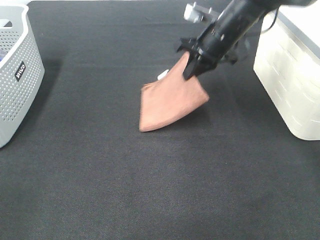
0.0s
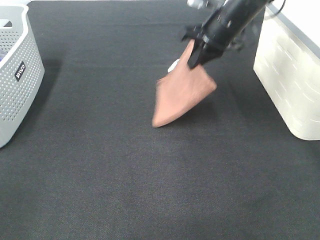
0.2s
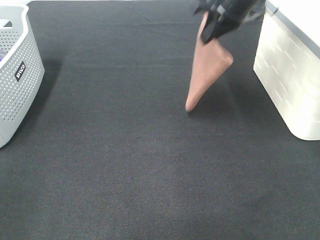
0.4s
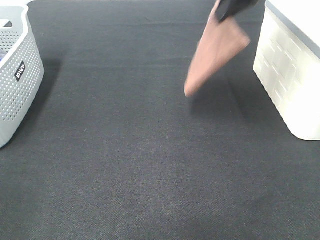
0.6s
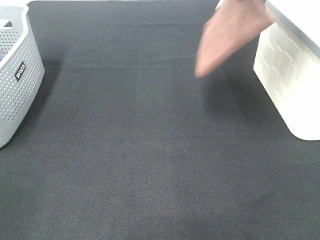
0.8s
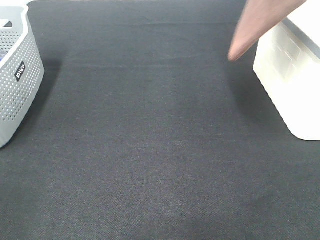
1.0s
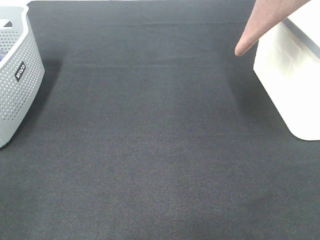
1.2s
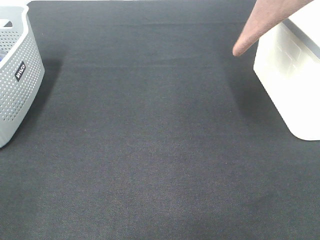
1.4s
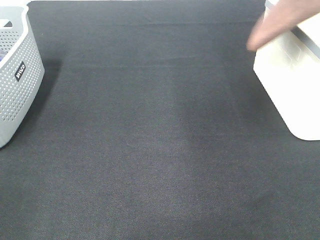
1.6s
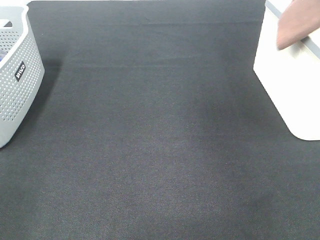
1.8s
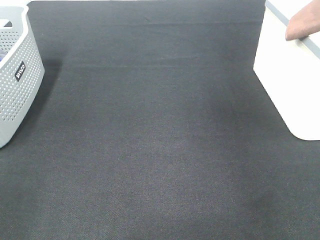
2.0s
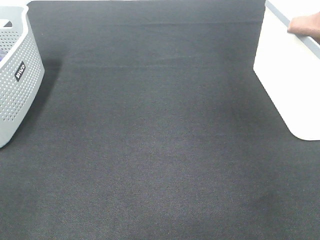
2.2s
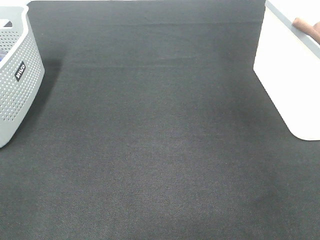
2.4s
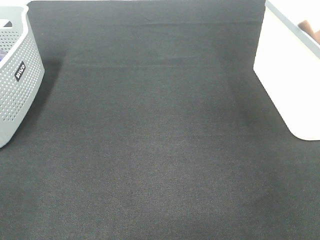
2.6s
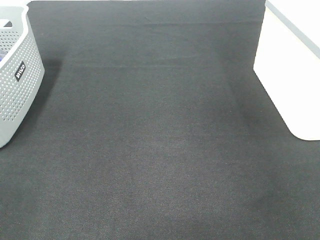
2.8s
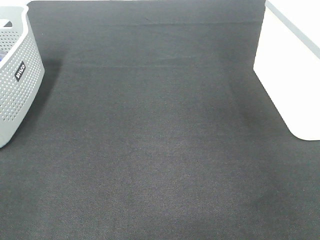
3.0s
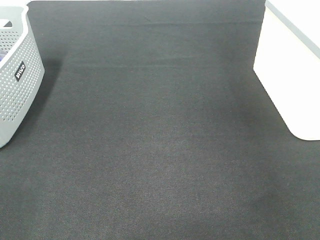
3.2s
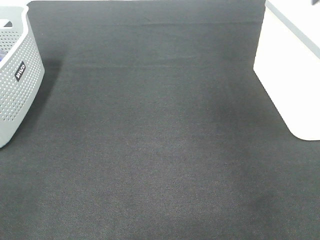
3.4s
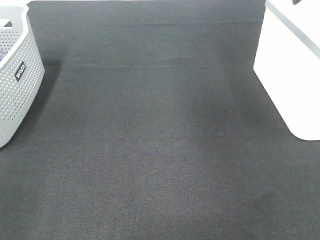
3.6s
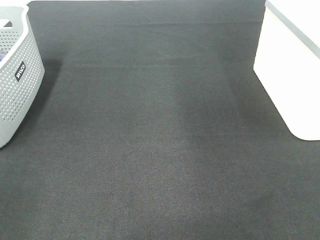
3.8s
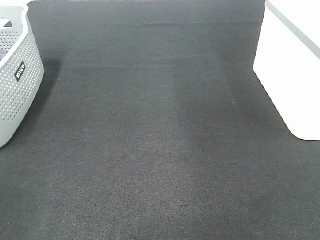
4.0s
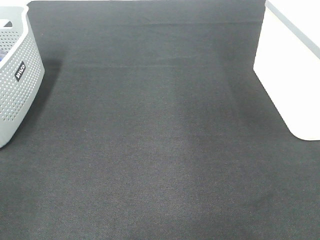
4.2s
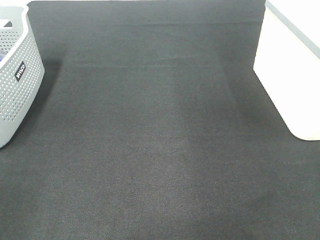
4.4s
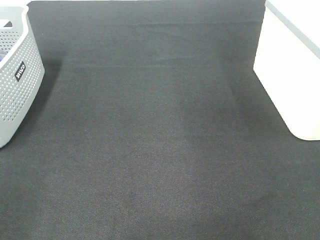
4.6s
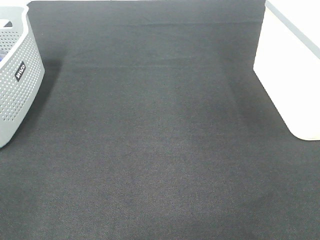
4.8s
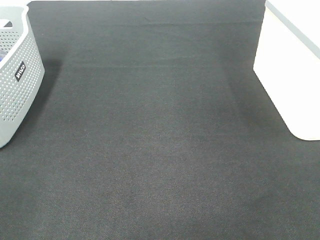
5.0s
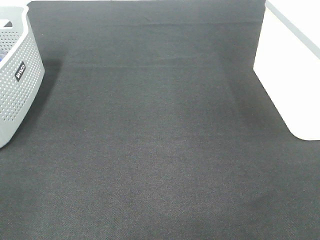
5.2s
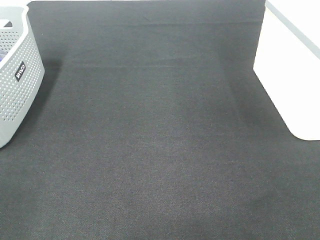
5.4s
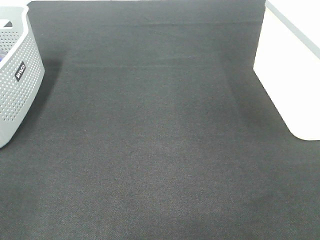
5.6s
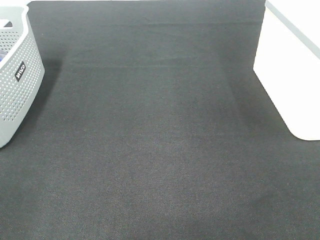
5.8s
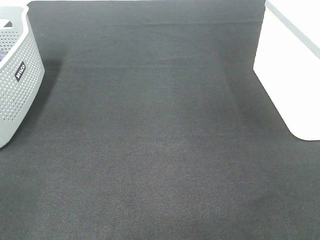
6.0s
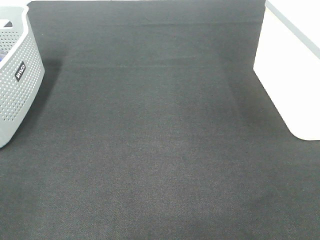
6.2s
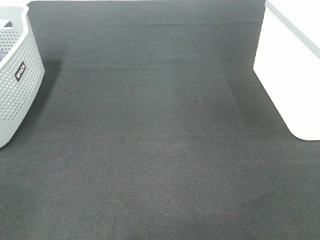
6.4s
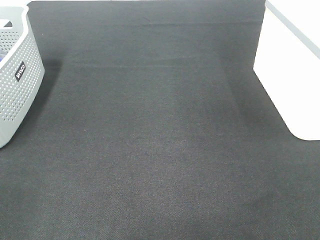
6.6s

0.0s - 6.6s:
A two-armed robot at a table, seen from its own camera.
Step, 0.0s - 3.0s: Right hand: place the brown towel in right basket.
0.0s - 1.6s: The right gripper is displaced upward and to the right by some 25 cm.
1.6s - 3.2s: The right gripper heads to the right and downward, covering approximately 15 cm, and opens up.

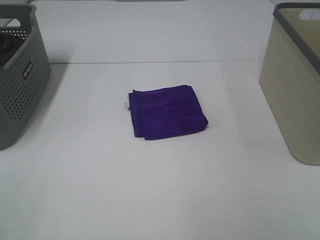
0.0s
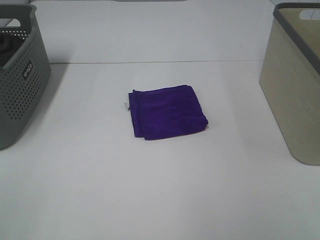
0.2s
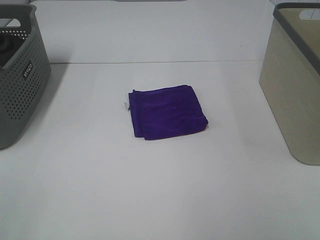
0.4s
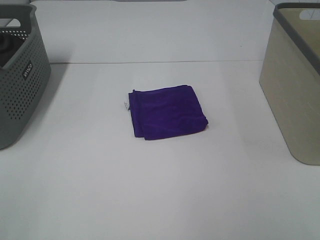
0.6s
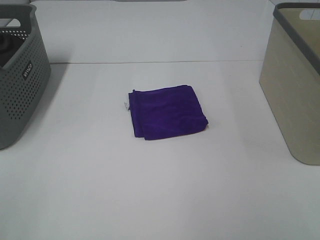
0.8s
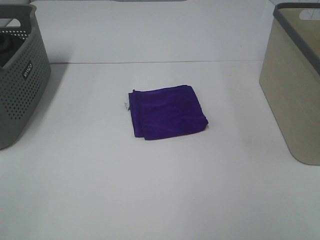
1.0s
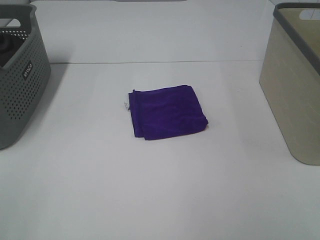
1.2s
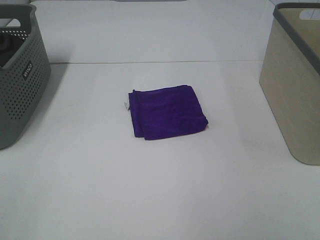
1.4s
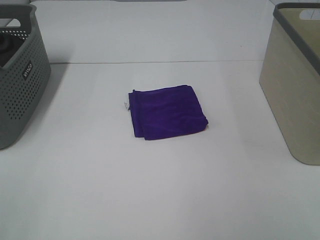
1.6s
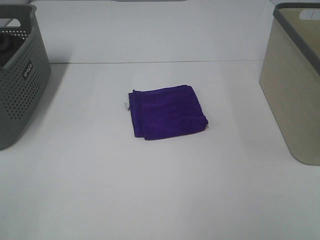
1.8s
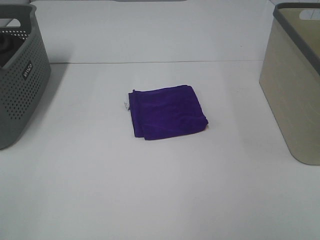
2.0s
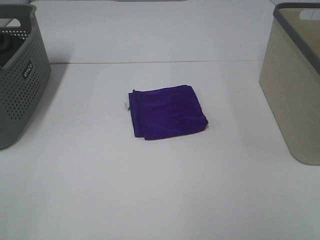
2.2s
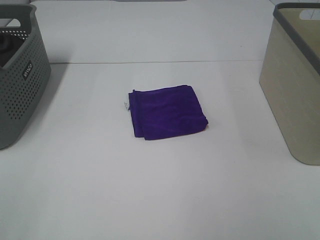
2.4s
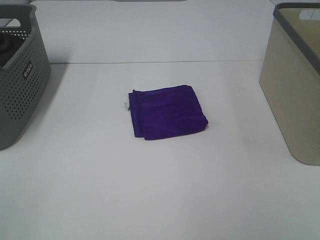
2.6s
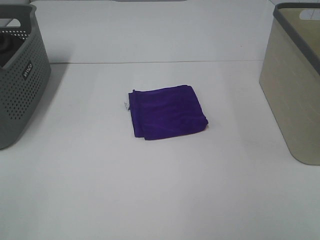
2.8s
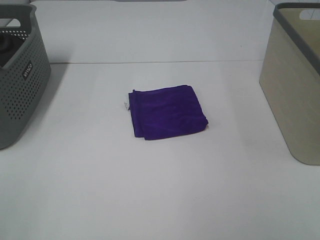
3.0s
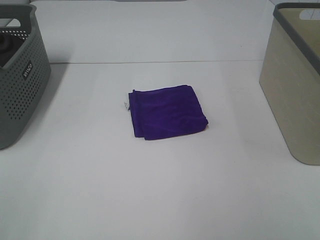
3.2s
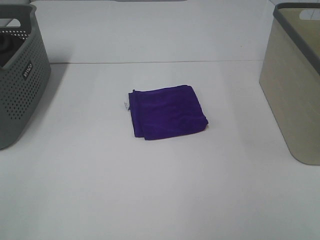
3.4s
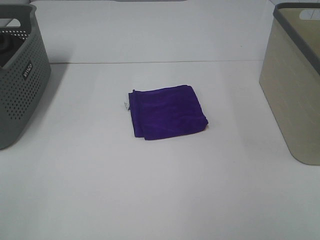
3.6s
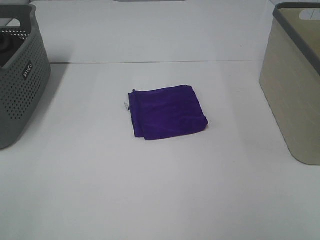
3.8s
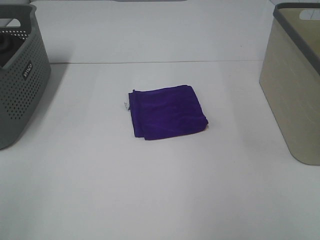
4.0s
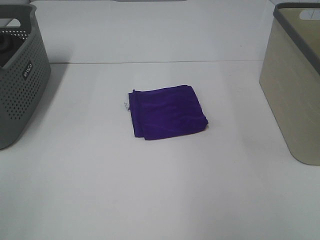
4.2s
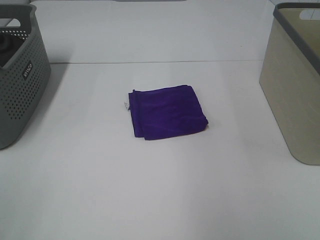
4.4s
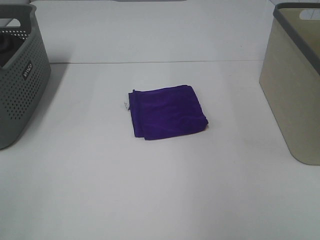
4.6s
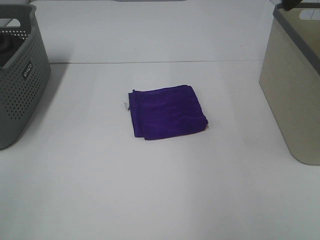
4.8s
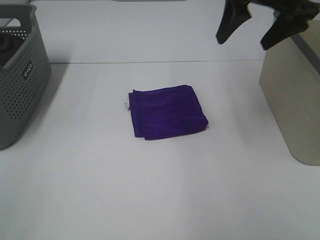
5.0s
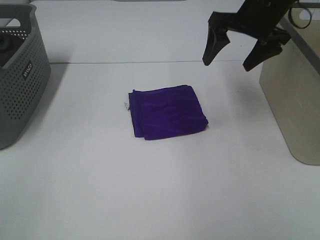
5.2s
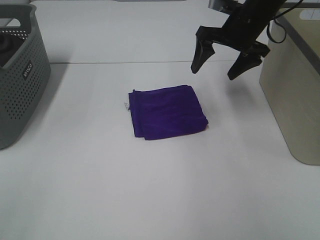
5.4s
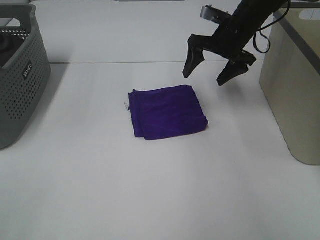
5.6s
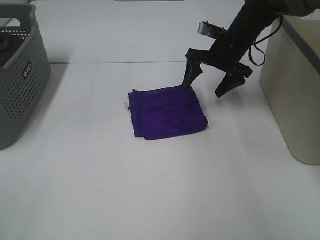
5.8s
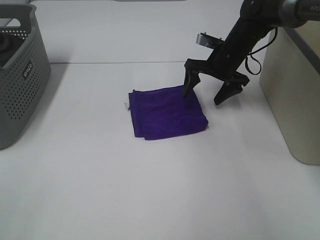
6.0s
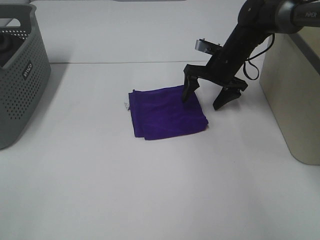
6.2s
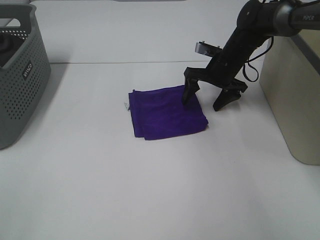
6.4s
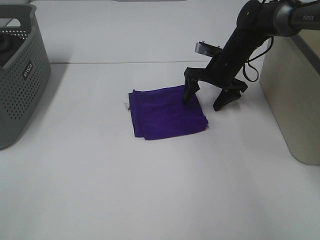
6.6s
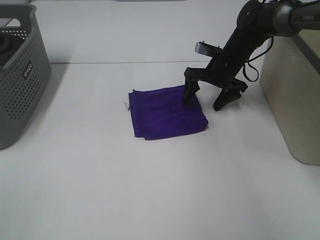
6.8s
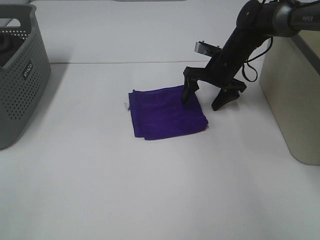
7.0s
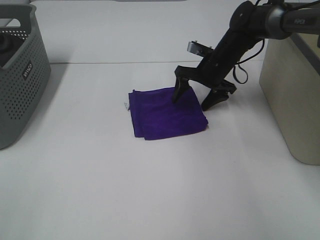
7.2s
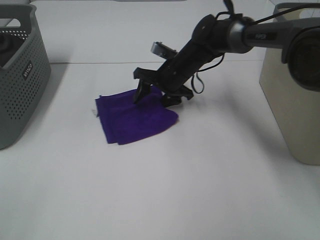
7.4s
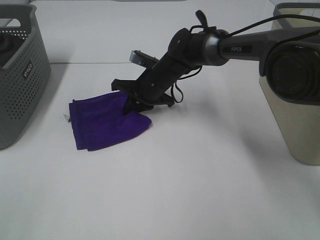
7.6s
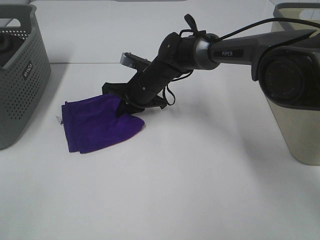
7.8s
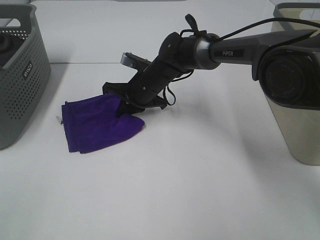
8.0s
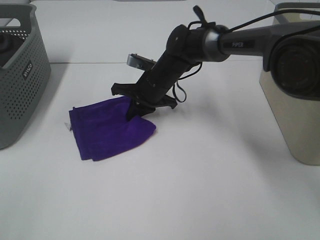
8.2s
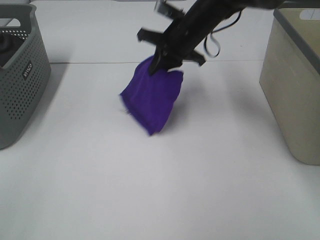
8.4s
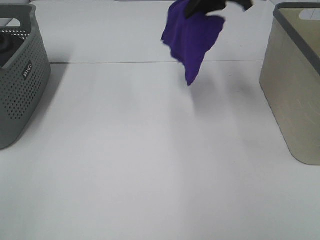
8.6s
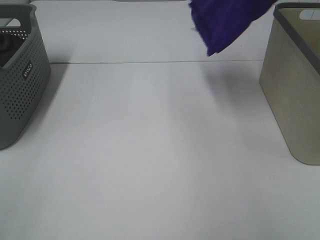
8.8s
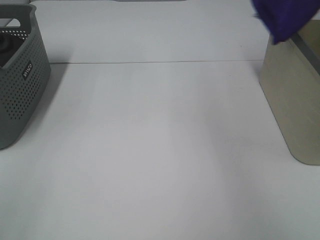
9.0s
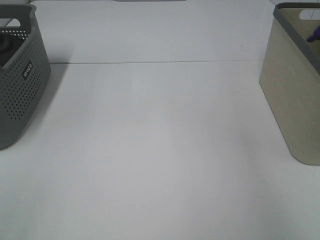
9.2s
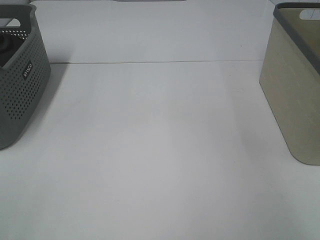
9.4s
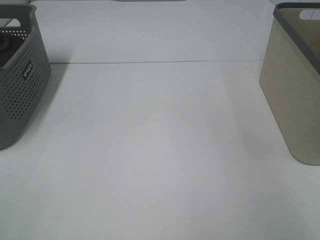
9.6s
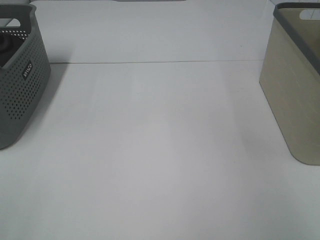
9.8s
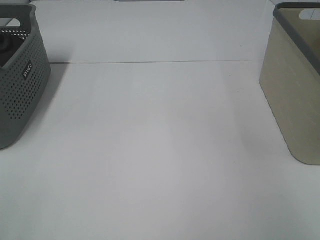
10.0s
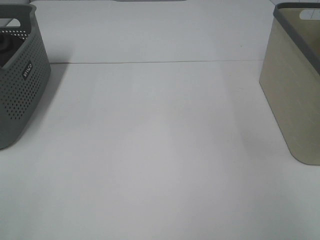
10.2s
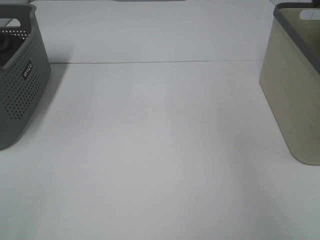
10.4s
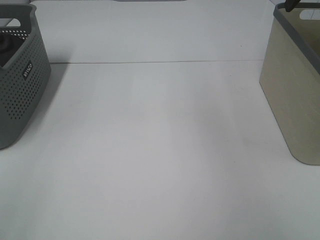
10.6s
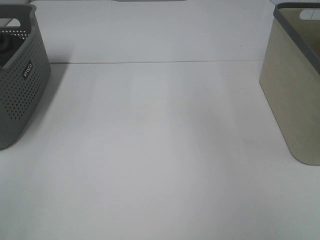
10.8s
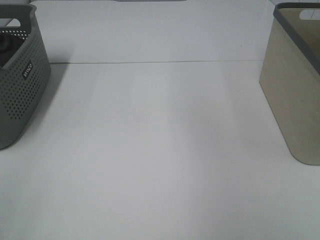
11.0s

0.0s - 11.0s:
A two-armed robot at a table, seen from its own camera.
Step, 0.0s - 7.6s: Right hand: grab the folded purple towel.
Step, 7.8s - 10.2s: Right hand: place the purple towel in right basket.
0.0s - 3.2s: Both grippers stay put.
4.8s - 6.2s: The right gripper goes about 30 cm downward and forward.
6.2s - 7.8s: The right gripper travels to the left by approximately 15 cm, and closes up.
7.8s - 9.4s: The right gripper is displaced to the right and upward by approximately 50 cm.

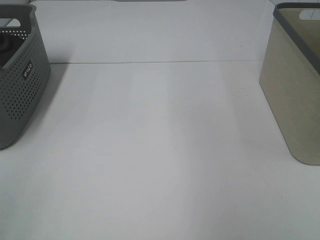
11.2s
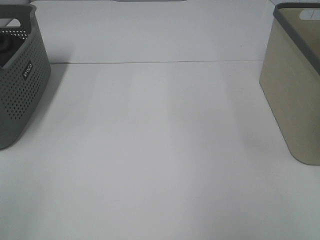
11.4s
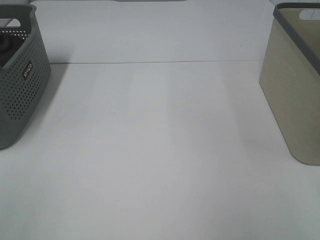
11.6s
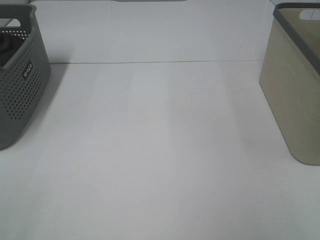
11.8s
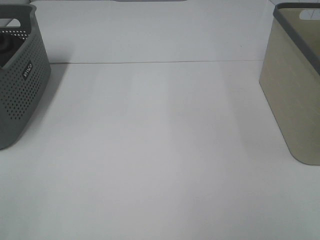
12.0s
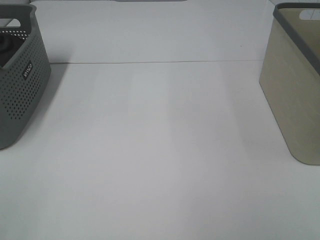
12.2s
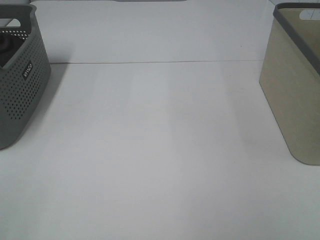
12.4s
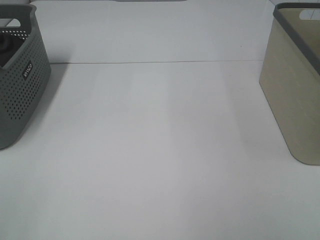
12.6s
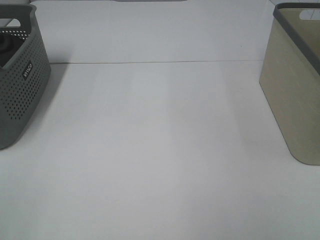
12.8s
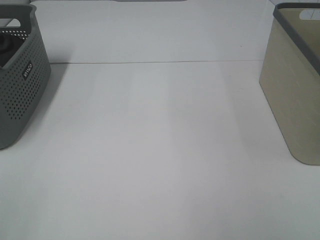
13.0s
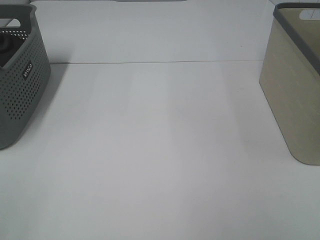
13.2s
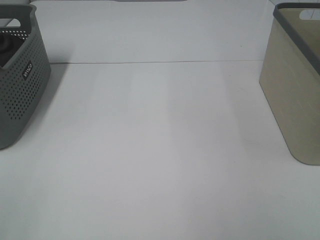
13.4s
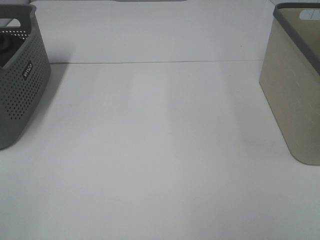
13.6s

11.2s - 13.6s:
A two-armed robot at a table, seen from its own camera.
12.4s - 13.6s: The two grippers keep their place.

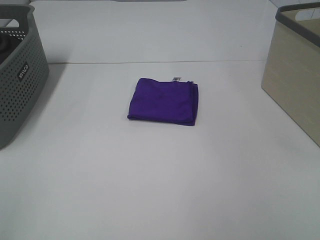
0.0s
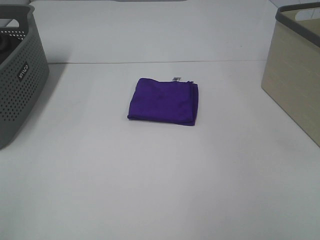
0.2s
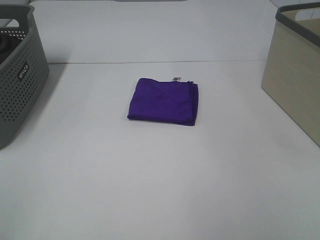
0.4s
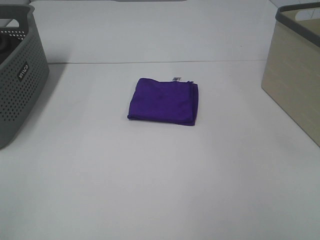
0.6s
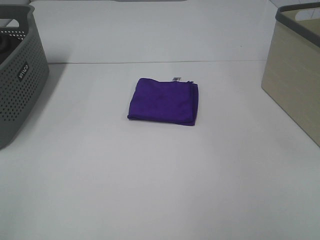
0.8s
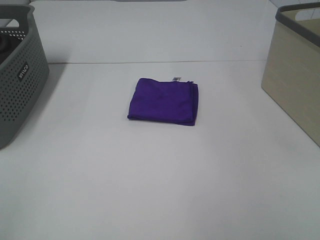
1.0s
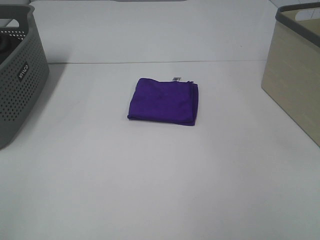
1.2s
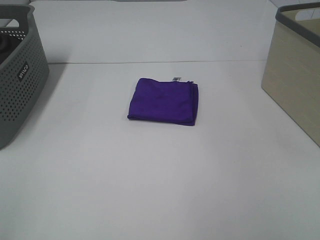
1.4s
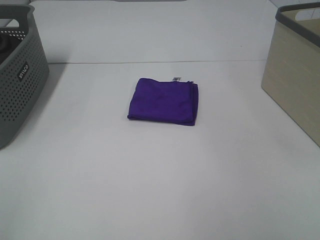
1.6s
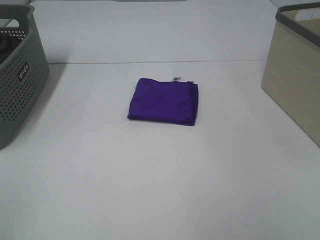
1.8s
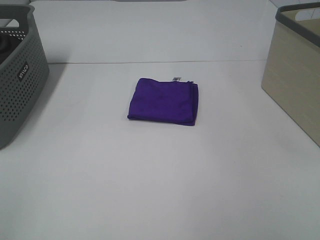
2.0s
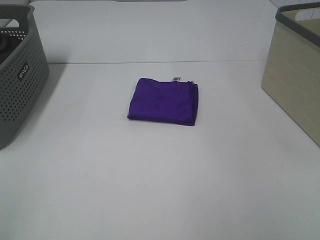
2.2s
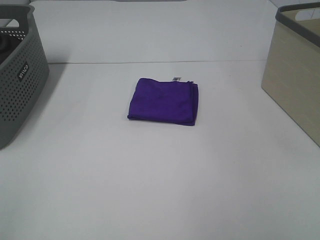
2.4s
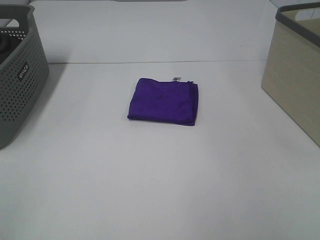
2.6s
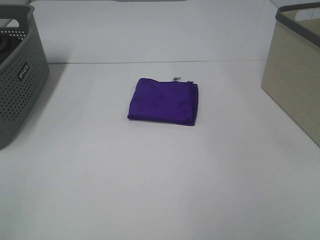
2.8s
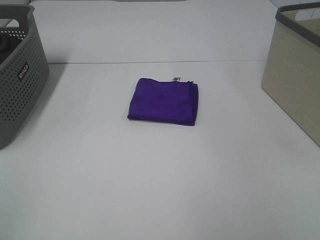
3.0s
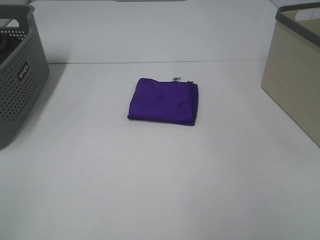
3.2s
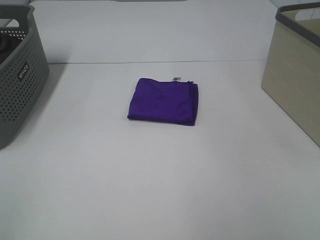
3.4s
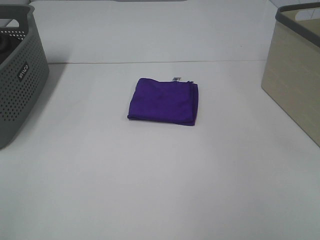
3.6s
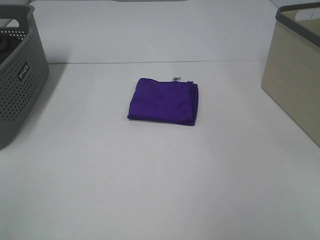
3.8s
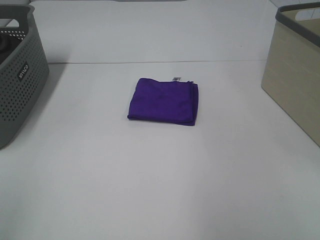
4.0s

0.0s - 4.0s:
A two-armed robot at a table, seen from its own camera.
0.0s - 2.6s: Both grippers stay put.
